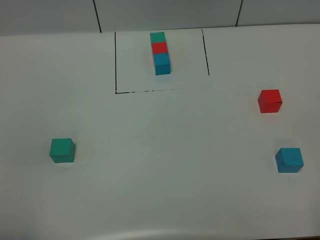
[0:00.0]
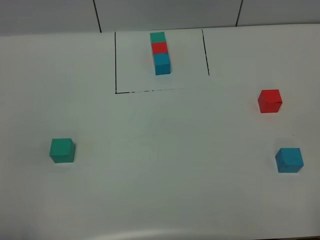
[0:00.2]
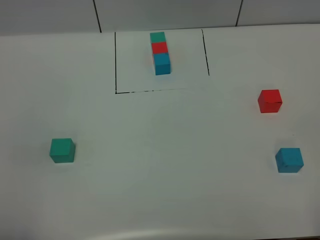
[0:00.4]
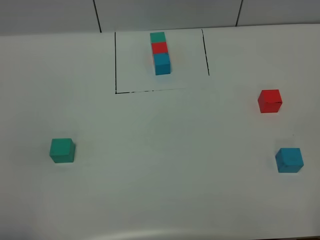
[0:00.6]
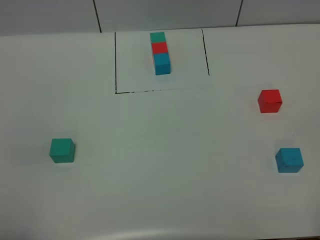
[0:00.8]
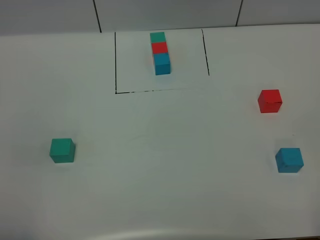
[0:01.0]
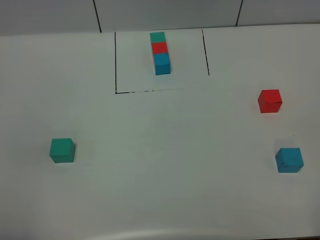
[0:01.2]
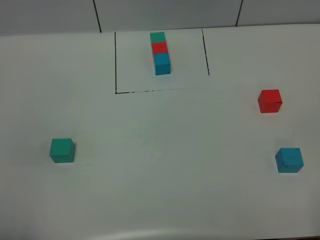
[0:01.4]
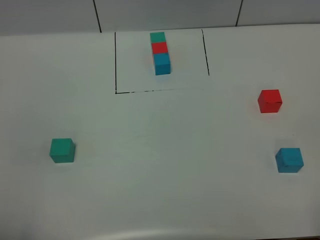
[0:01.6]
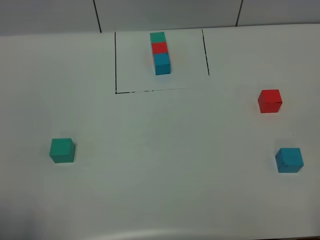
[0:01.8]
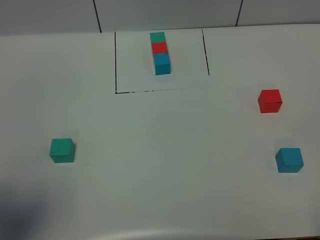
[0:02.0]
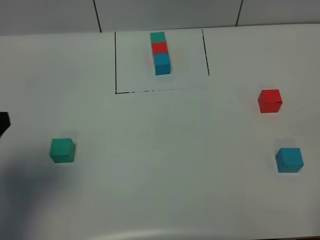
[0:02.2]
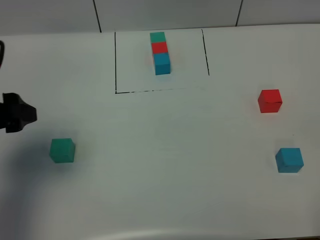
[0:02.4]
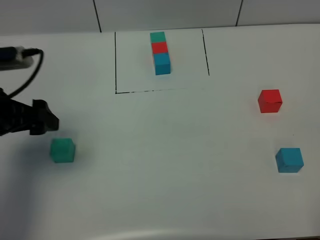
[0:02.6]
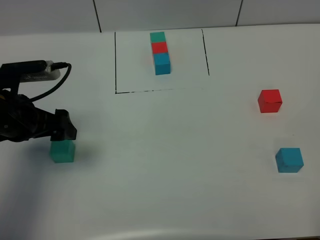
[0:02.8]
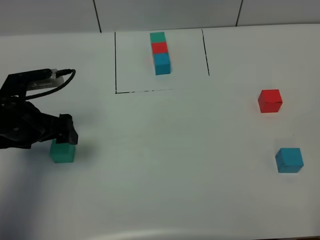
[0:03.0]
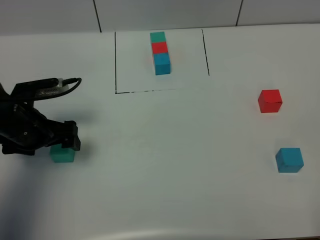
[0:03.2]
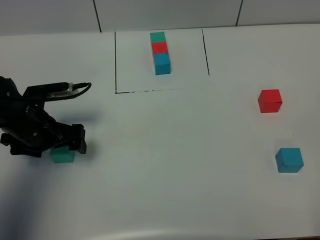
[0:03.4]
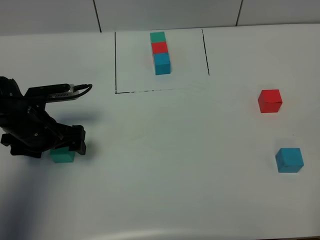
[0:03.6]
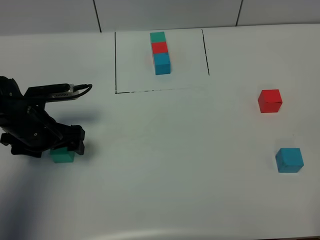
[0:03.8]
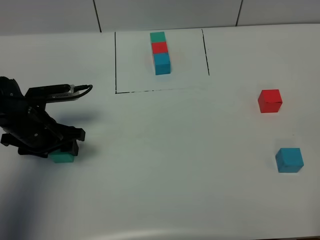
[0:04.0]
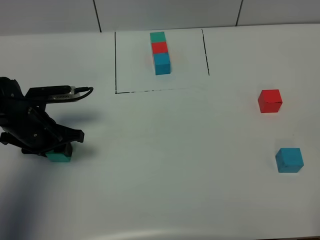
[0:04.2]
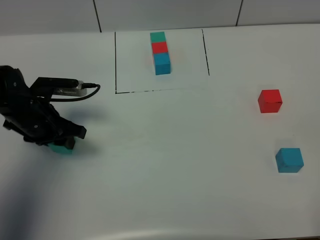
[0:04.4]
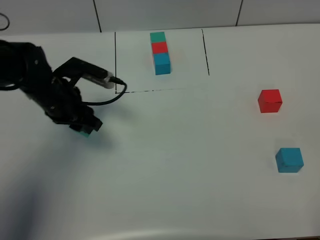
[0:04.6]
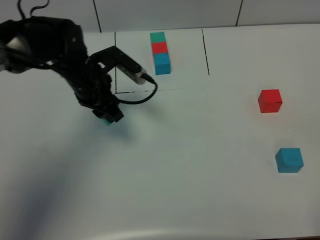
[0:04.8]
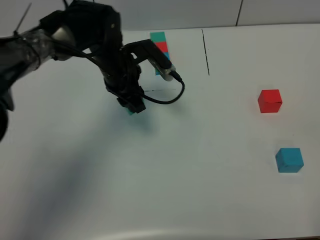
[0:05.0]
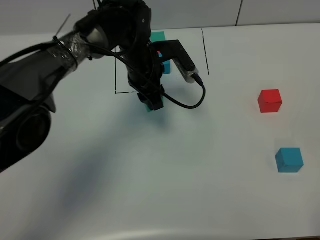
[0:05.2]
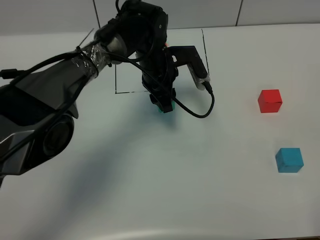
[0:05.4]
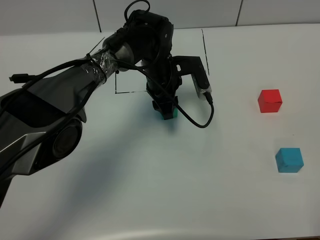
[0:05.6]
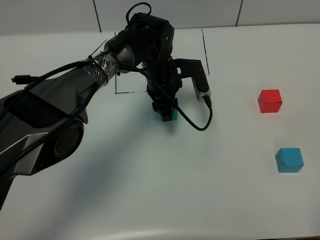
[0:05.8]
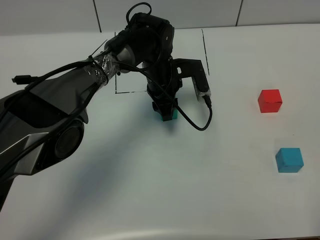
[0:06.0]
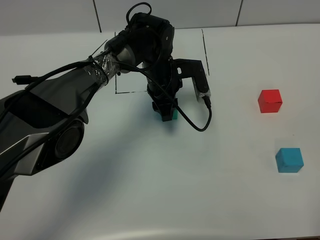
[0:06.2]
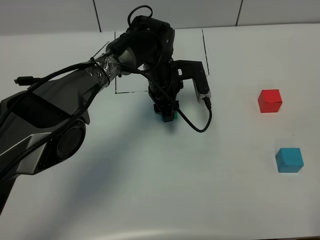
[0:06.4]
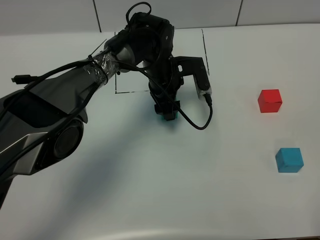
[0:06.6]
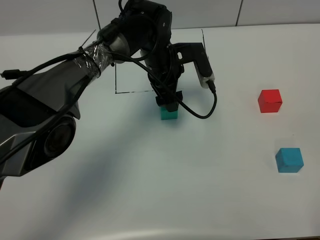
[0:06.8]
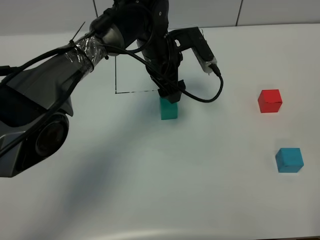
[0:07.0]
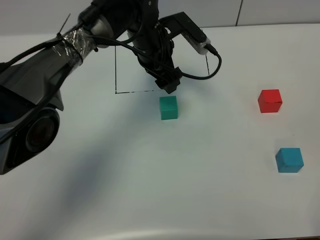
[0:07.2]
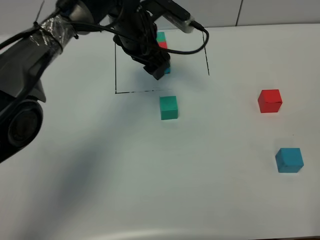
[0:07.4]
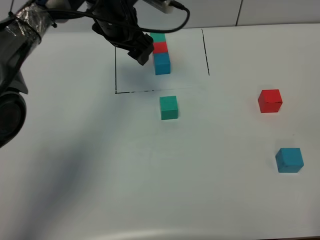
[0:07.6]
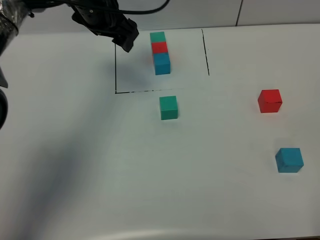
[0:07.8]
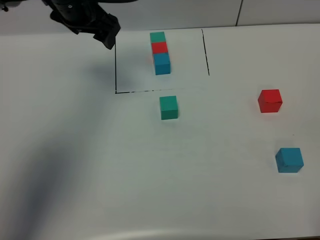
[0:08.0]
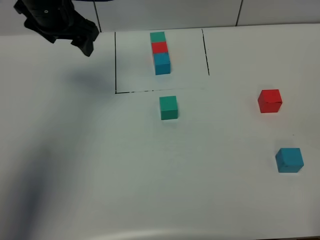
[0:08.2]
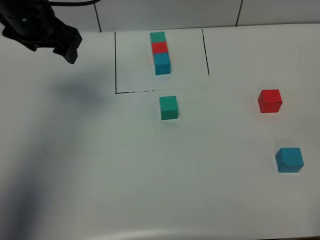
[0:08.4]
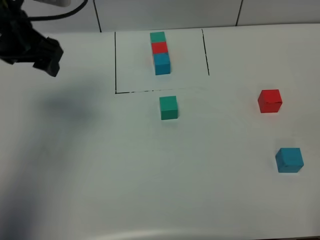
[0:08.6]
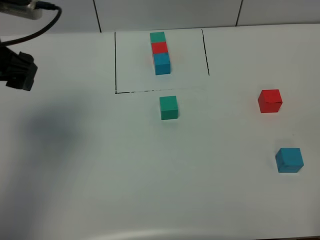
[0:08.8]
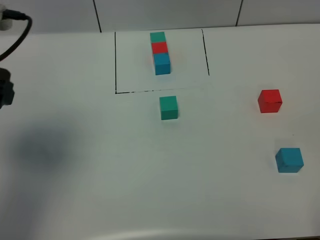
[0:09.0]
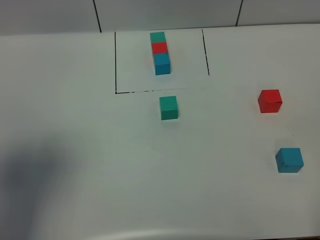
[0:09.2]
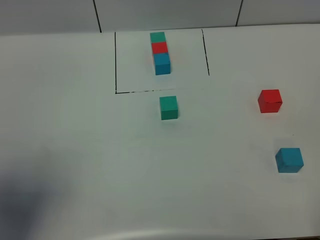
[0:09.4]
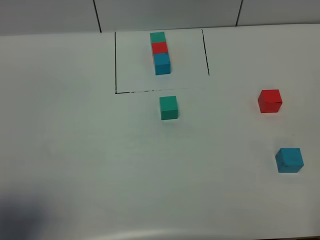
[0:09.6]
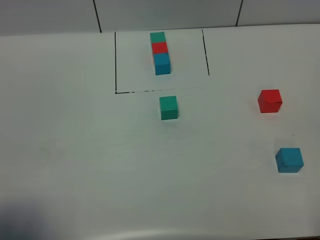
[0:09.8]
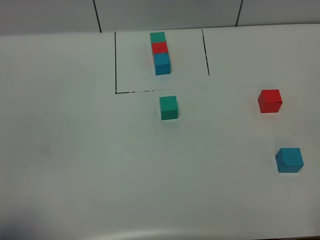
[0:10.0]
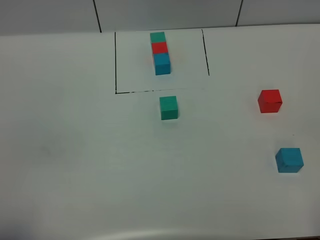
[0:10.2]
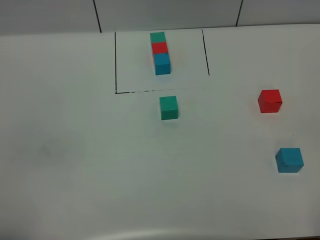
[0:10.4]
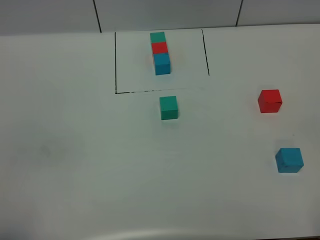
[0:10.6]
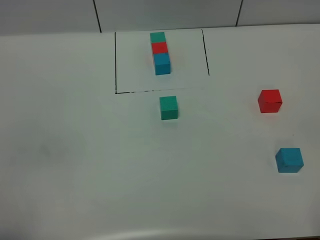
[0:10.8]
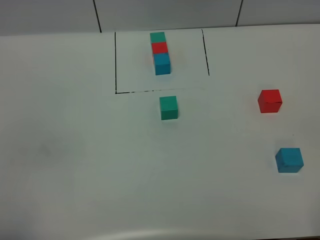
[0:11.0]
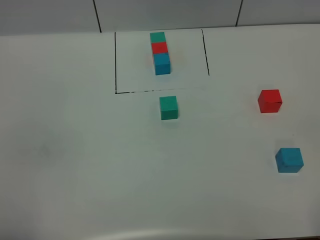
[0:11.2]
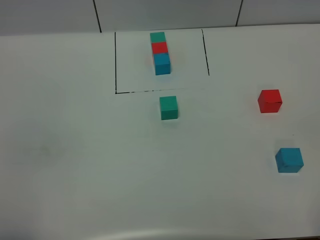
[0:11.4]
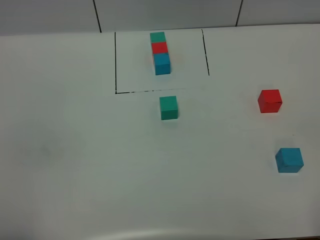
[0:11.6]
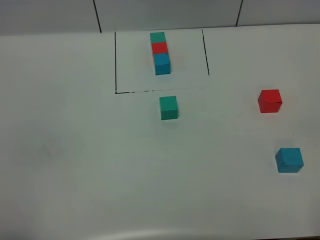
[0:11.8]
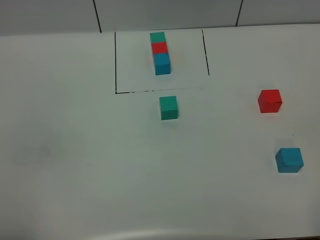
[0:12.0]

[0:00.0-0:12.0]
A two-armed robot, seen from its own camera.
Task of the whole recording: According to the building block template in front, assemble the scattered blocks together.
Step, 0:02.2 to 0:07.0: Put the green cube in the center of the table.
0:01.6 to 0:03.0: The left gripper shifts roughly 30 cm forward and downward, and opens its fingers.
0:03.0 to 0:04.4: The left gripper closes its fingers.
0:04.4 to 0:06.0: The left gripper goes about 25 cm to the right and forward.
0:06.0 to 0:07.6: The left gripper travels upward and to the left by about 15 cm, and opens its fingers.
0:07.6 to 0:09.0: The left gripper shifts approximately 30 cm backward and to the left.
0:09.0 to 0:10.4: The left gripper is displaced backward by roughly 25 cm.

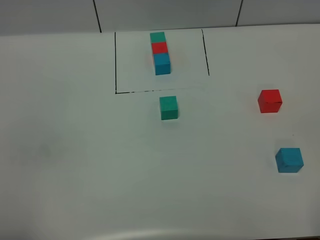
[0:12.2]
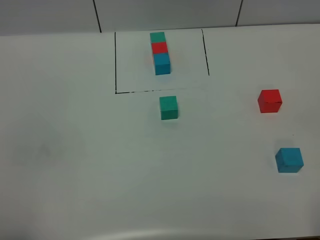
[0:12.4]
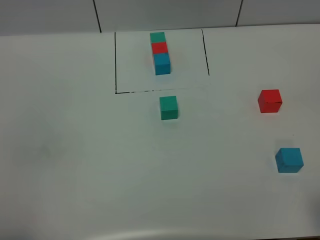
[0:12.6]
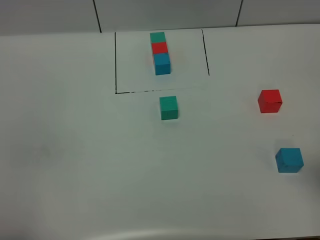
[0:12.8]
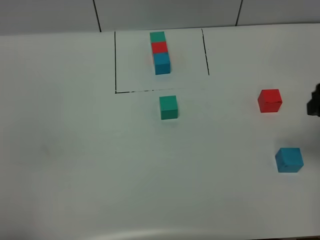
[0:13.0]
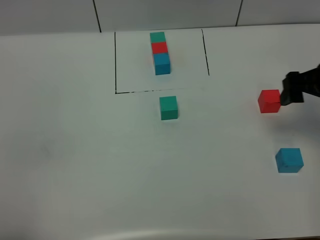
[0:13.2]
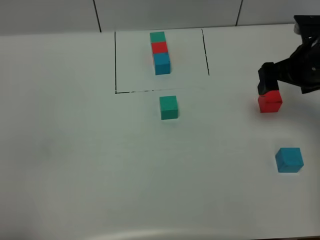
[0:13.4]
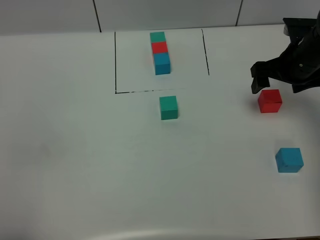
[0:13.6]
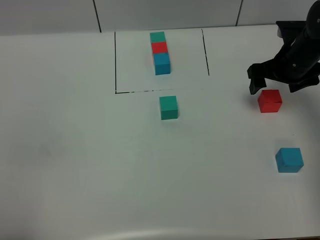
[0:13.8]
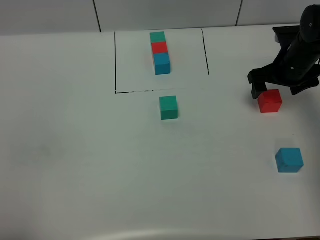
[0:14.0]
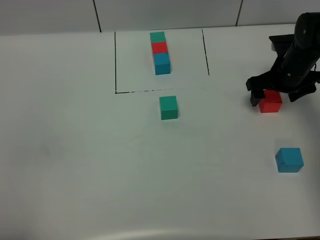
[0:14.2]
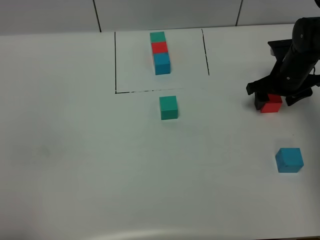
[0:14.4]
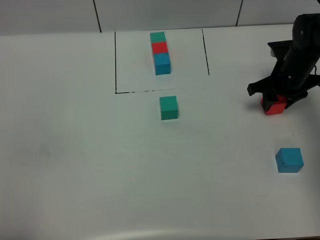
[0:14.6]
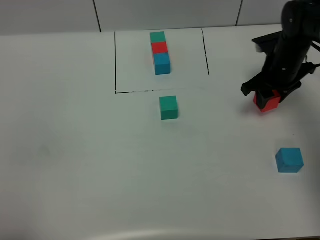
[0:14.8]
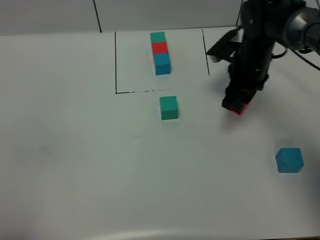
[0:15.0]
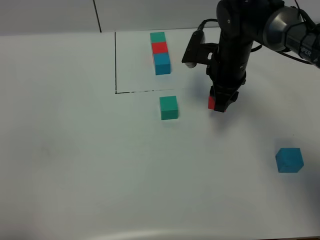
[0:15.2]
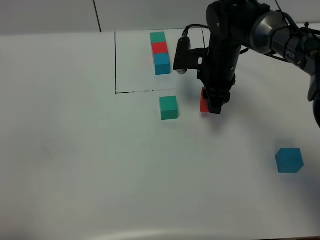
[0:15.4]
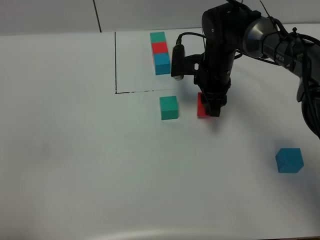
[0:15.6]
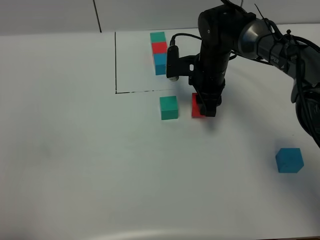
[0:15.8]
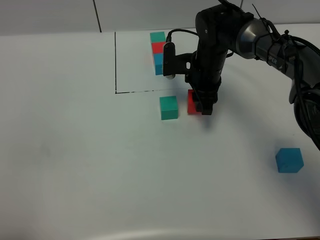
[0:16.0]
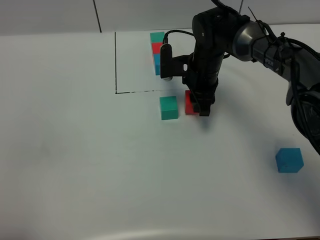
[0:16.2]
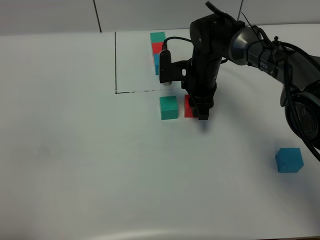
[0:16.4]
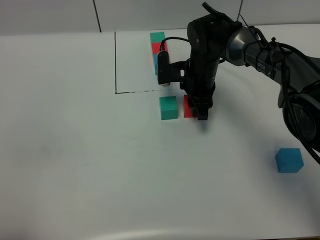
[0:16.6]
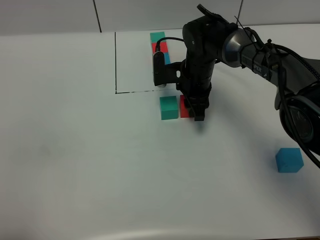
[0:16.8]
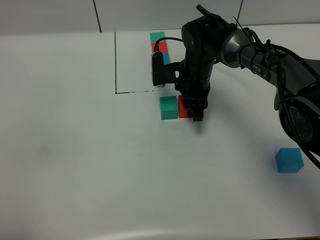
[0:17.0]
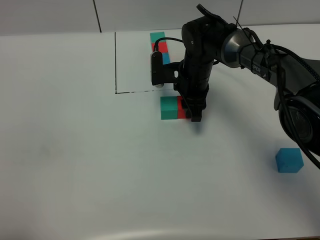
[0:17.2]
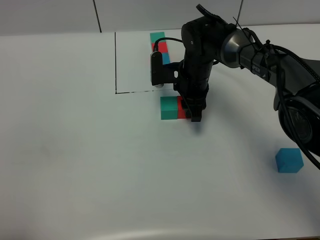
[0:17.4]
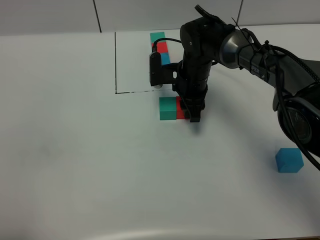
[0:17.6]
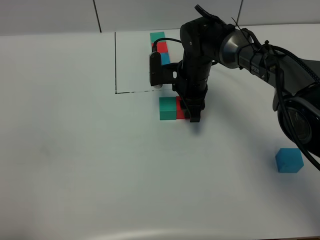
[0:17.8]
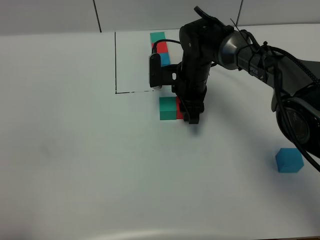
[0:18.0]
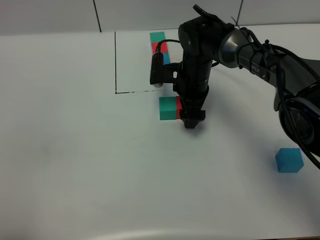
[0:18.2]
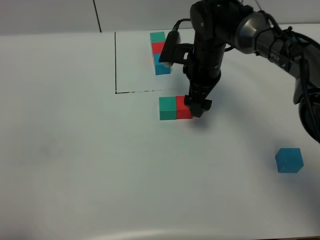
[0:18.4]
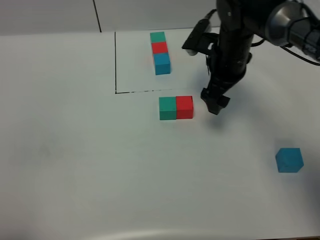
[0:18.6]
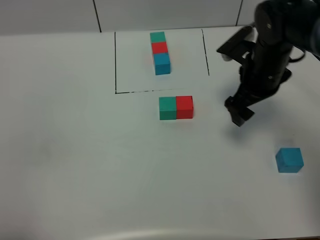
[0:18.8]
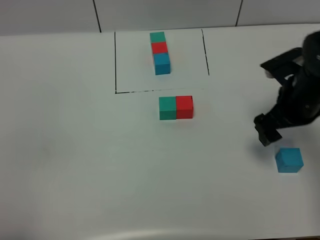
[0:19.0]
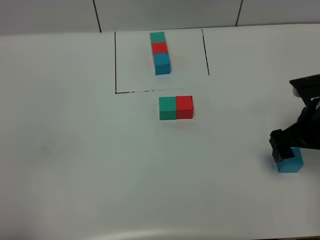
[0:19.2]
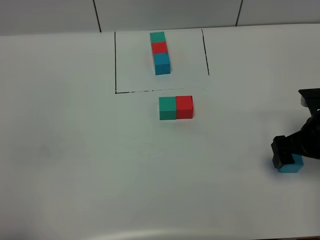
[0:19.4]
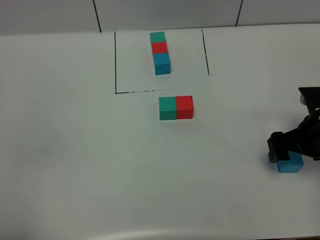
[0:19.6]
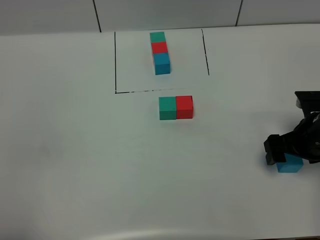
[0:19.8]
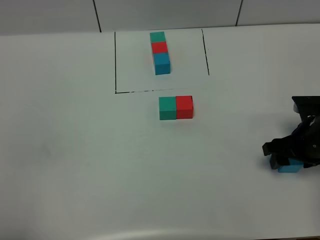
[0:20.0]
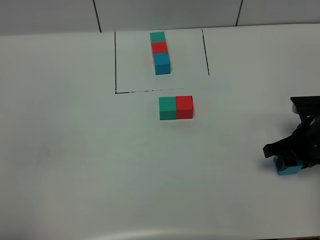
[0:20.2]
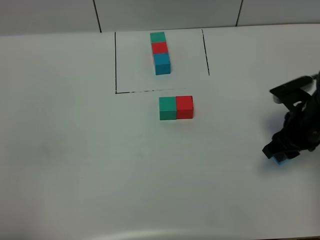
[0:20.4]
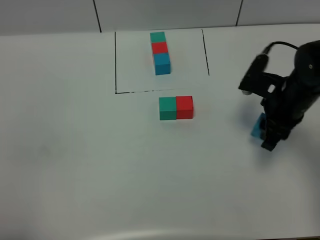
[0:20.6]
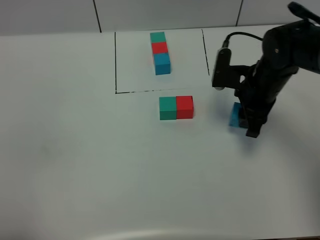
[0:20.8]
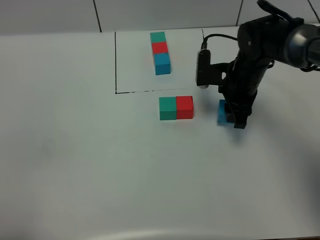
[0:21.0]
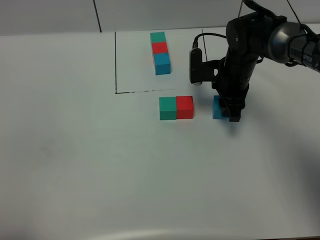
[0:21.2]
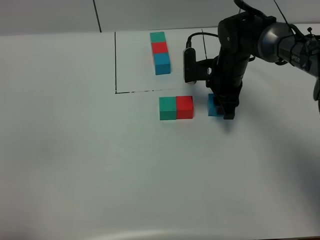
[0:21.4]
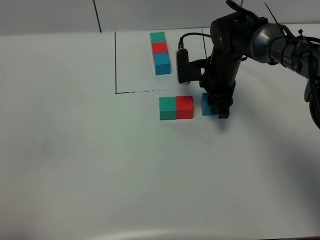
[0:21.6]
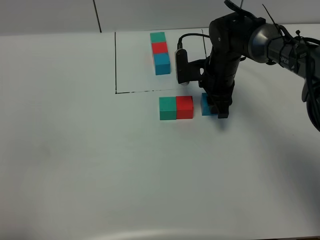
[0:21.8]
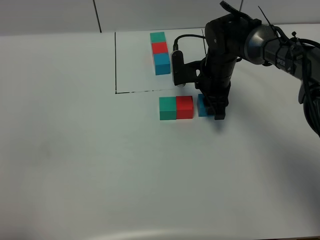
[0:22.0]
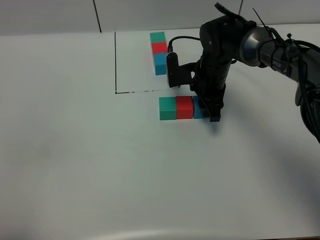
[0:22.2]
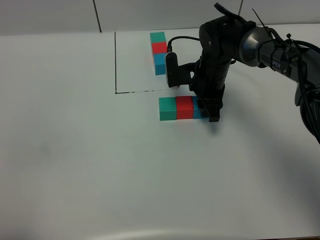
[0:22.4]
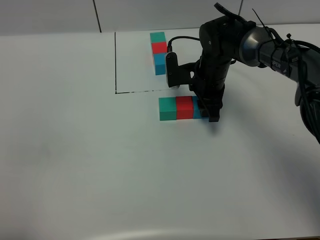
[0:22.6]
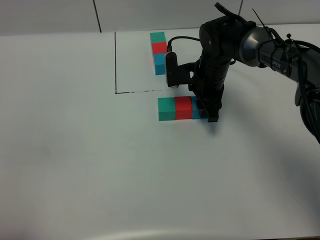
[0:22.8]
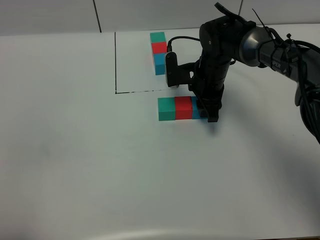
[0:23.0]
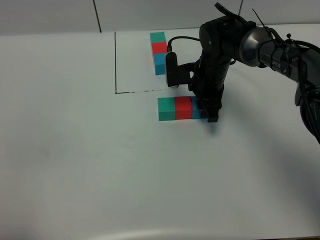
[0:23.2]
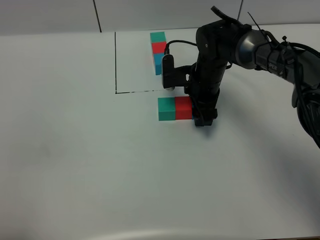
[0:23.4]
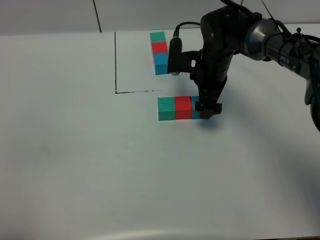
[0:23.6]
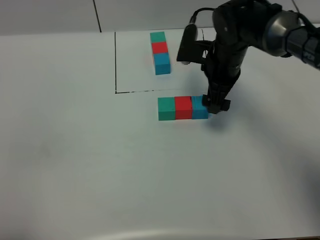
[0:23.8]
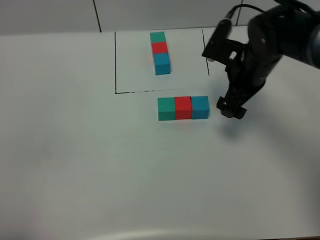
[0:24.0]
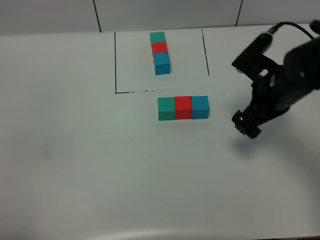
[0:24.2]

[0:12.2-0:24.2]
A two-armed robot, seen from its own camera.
Task of the whole recording: According to the building block template in front, assemble the scattered blocks together.
Step, 0:12.2 to 0:18.4: Put the red cube on the right of the green cube.
Step, 0:18.6 to 0:23.8: Put the blue cube on the right of the red cube.
0:12.2 to 0:13.8: The right gripper moves forward, roughly 40 cm.
0:13.8 to 0:15.2: The right gripper is displaced to the left by about 15 cm, and closes.
0:15.2 to 0:16.6: The right gripper heads downward, covering some 5 cm.
0:16.6 to 0:18.2: The right gripper opens up.
0:18.2 to 0:19.8: The right gripper travels to the right and backward by some 25 cm.
0:19.8 to 0:21.2: The right gripper heads forward and to the left, covering some 20 cm, and closes up.
0:21.2 to 0:22.6: There are only small adjustments of the grippers.
0:22.6 to 0:24.2: The right gripper moves to the right, backward and upward, roughly 15 cm, and opens.
